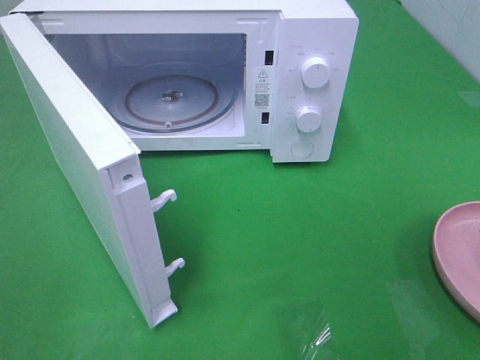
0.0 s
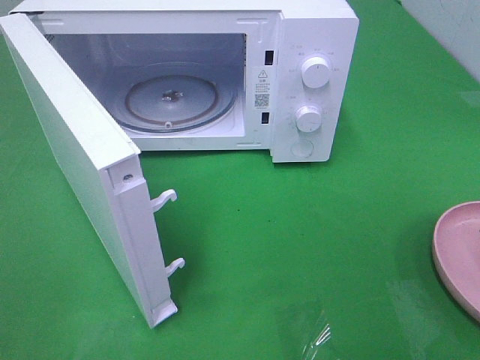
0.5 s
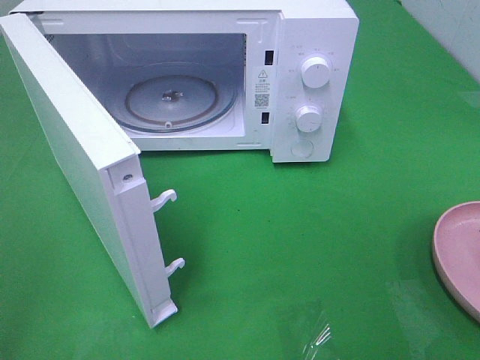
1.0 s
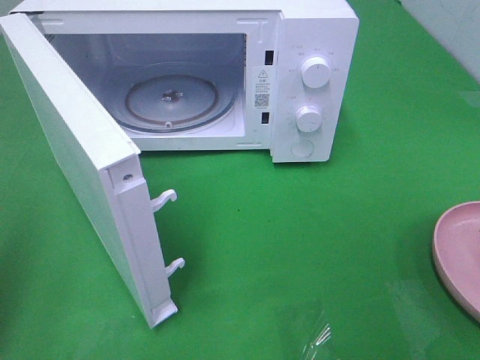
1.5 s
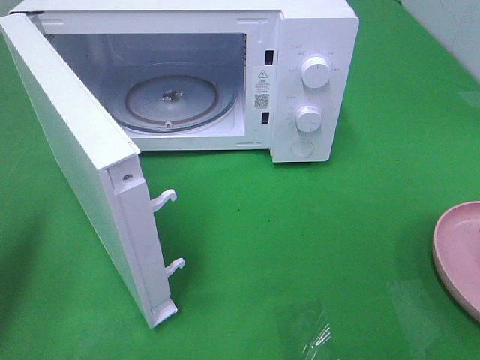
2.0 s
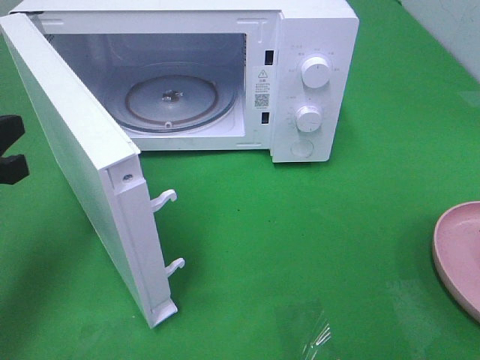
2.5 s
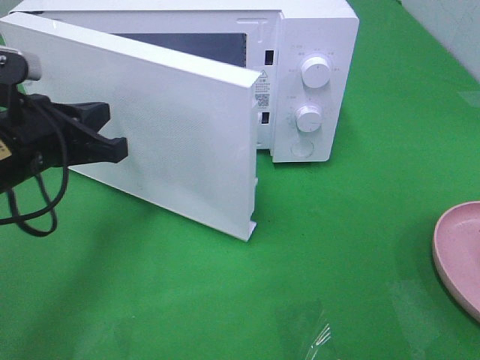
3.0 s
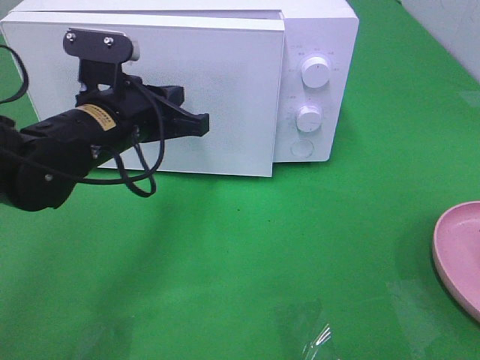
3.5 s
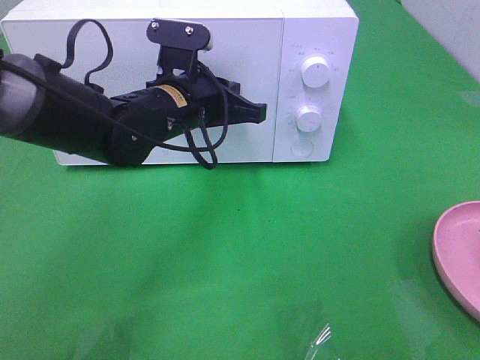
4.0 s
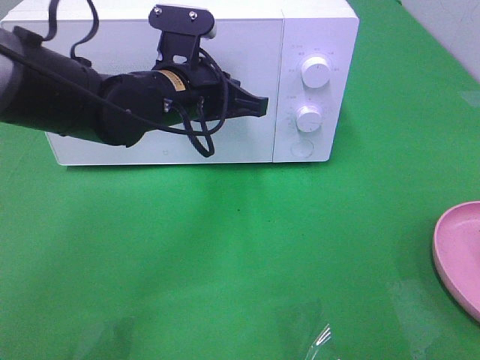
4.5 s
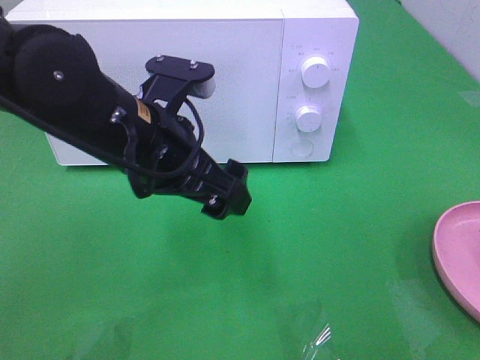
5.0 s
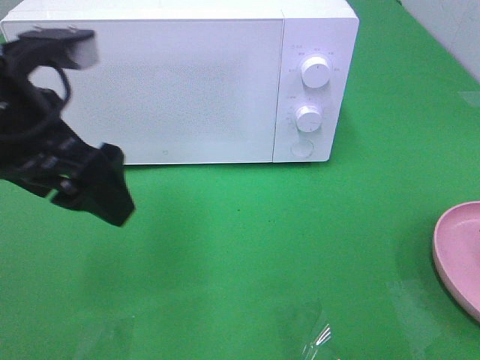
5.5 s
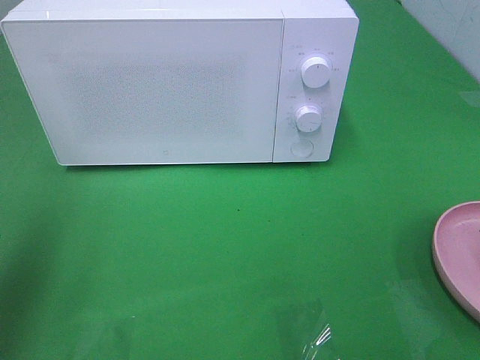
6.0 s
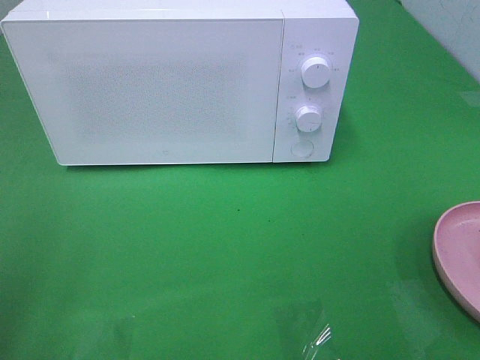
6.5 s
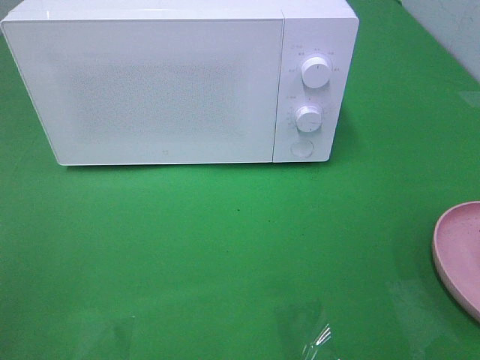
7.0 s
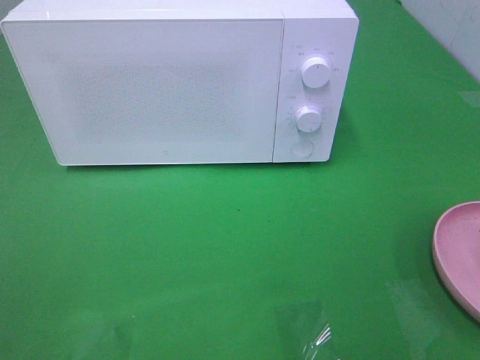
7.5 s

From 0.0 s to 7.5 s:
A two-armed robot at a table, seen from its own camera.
Task of the whole recording: Heat the burger.
Step, from 0.0 s to 4.5 s: Left hand: close the microwave door.
From 0.0 s to 2.0 s: The left gripper heads forward, covering about 20 cm, and closes its fingers.
From 2.0 s to 4.0 s: The left gripper travels to the right and forward by roughly 30 cm.
From 4.0 s to 5.5 s: The left gripper heads backward, to the left and upward, covering some 20 cm, and opens.
From 5.5 s to 7.5 s: The left gripper moves backward and to the left, approximately 25 cm.

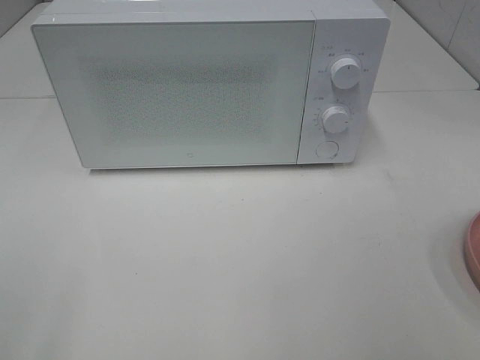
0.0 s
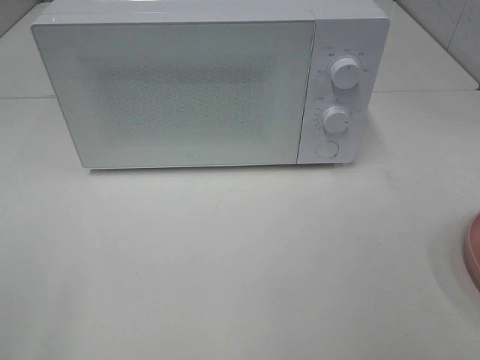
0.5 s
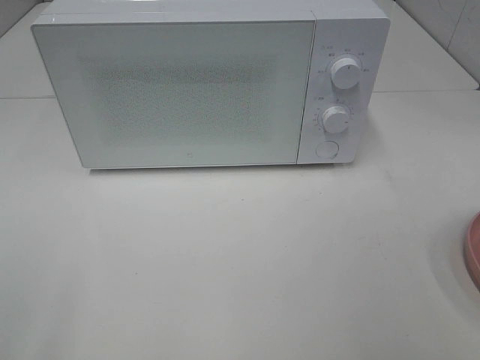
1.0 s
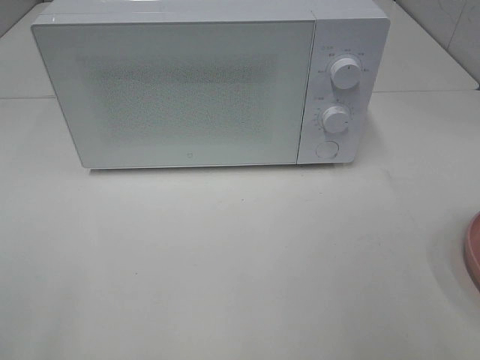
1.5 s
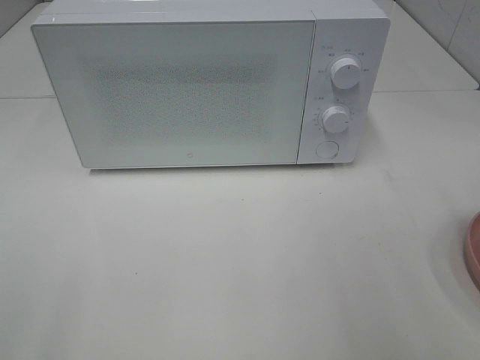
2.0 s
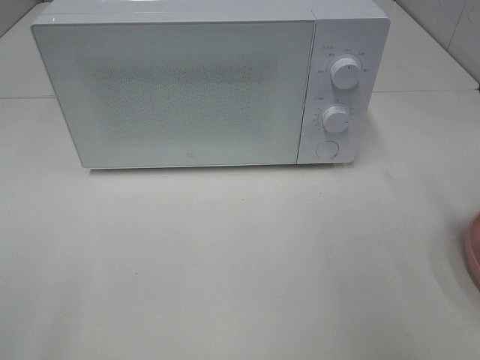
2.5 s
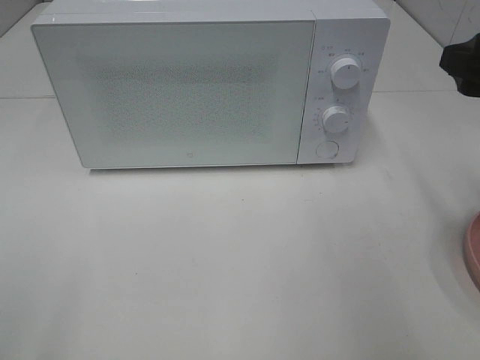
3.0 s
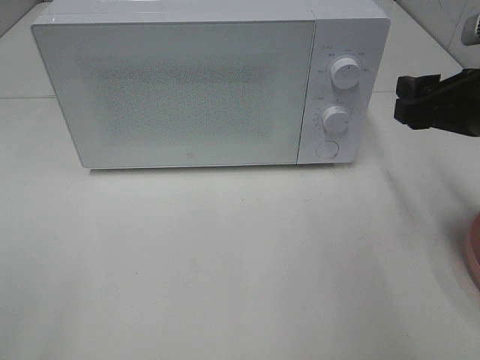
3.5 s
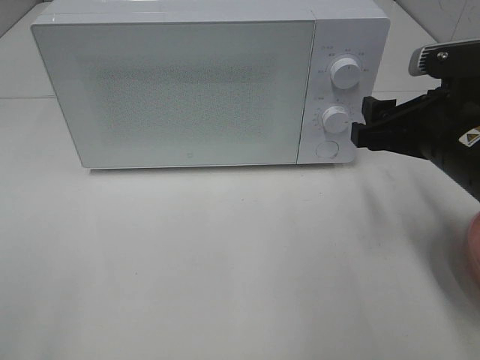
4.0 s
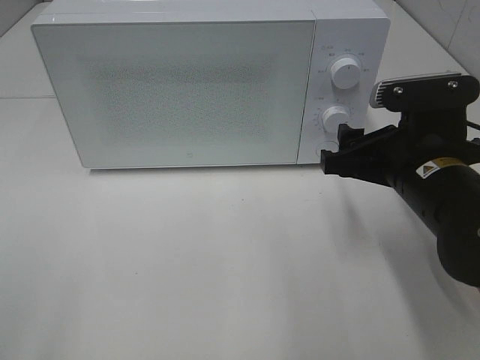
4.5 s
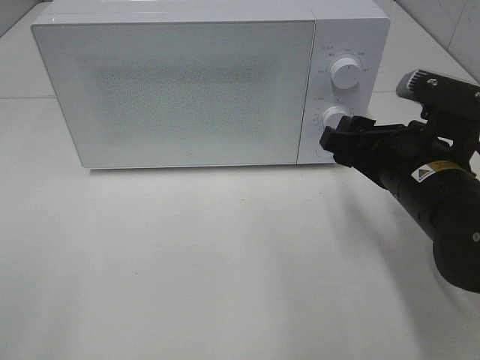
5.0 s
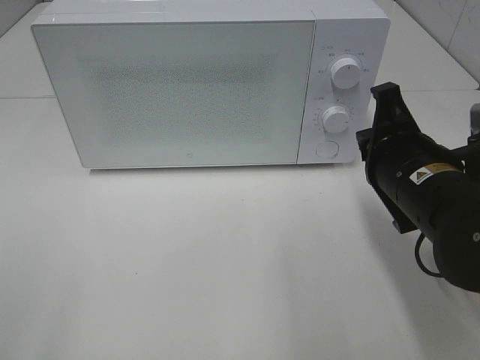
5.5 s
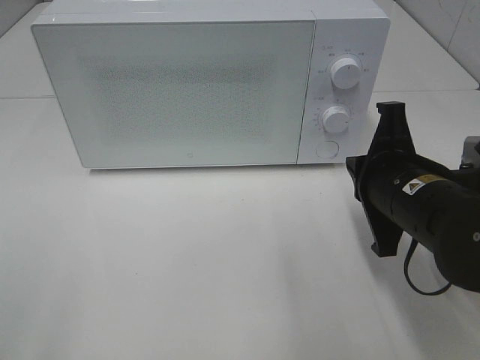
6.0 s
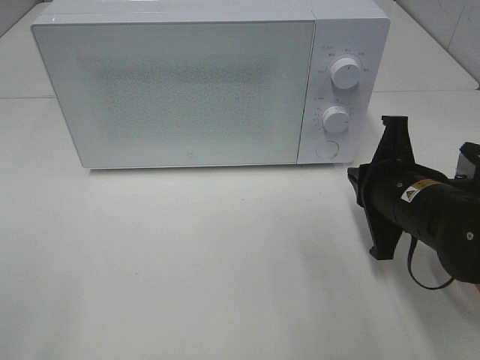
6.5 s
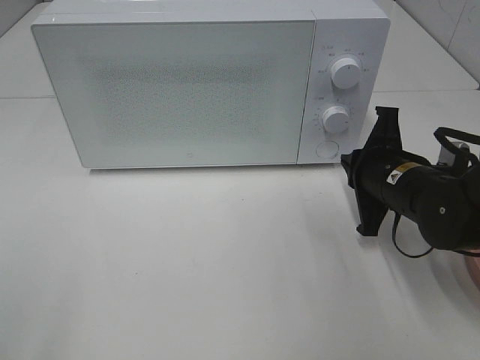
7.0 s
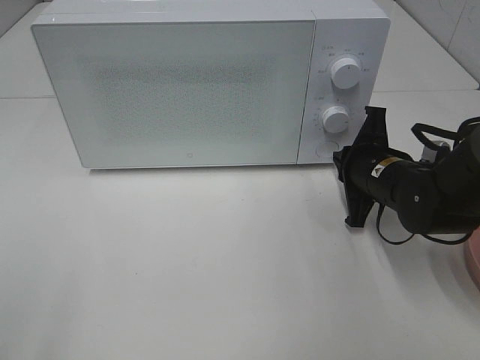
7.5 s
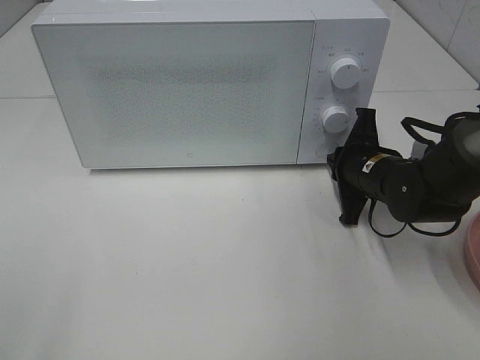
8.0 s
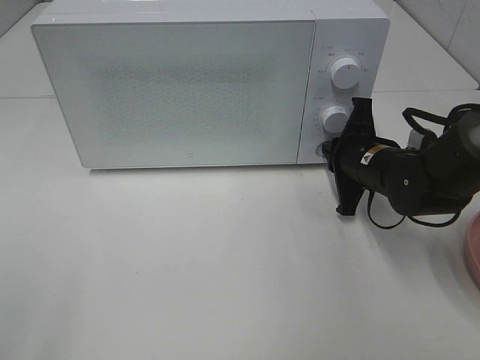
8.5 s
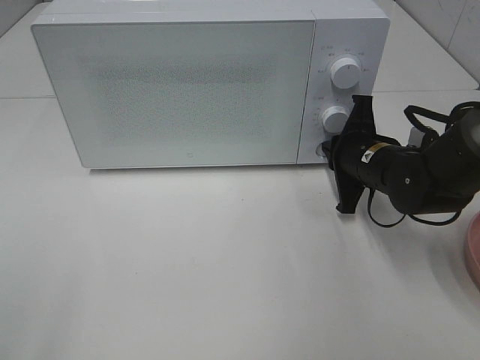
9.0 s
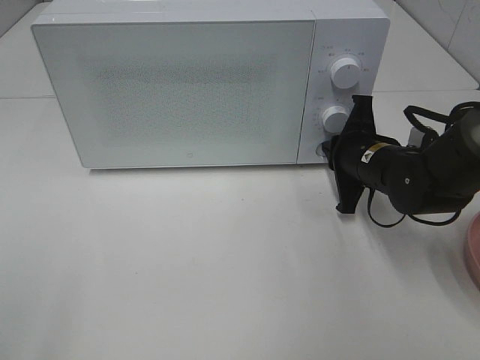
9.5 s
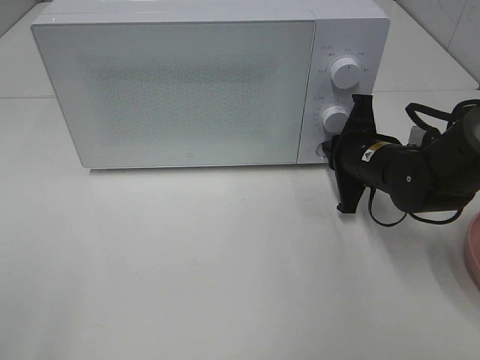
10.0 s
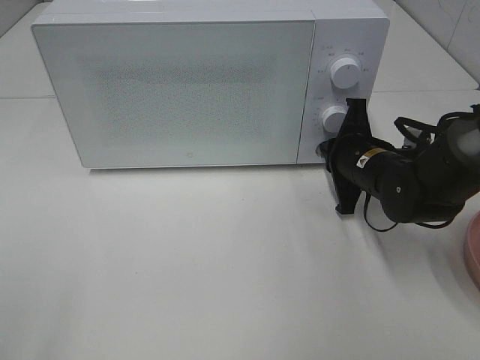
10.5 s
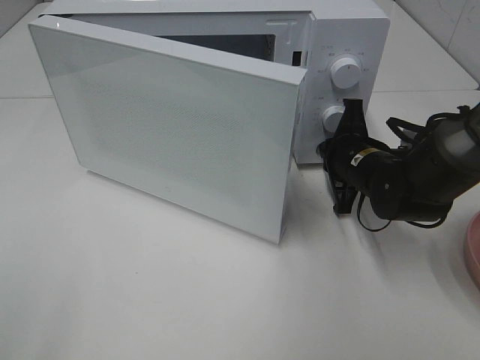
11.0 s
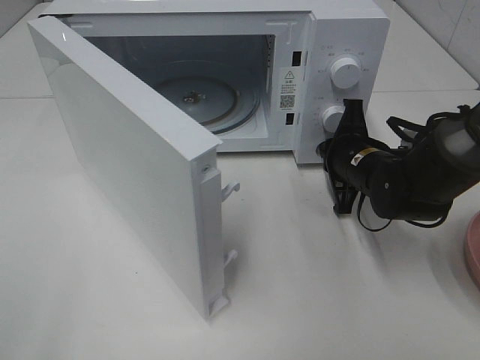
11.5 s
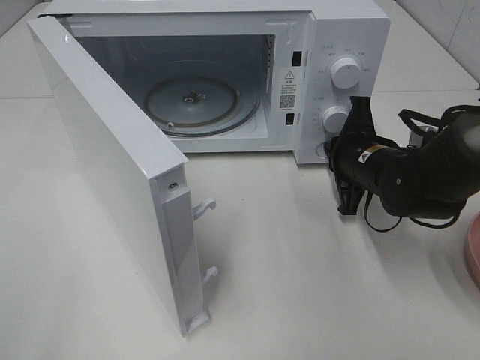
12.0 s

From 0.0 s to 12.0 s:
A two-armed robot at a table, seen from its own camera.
Task of the whole recording: Heat the burger.
From 2.0 s to 4.0 s: The right gripper moves forward, downward and to the left, about 20 cm.
From 4.0 s to 6.0 s: The right gripper ends up about 5 cm from where it was, and closes its fingers.
From 6.0 s to 8.0 s: The right gripper travels forward and downward by roughly 15 cm.
From 8.0 s to 10.0 s: The grippers move only a little.

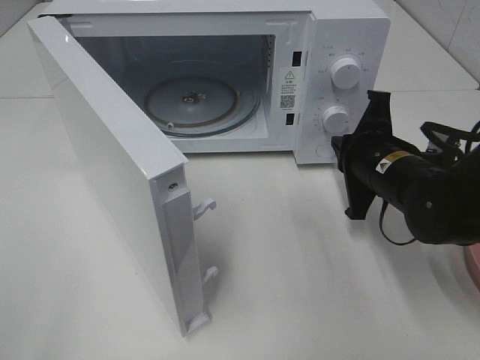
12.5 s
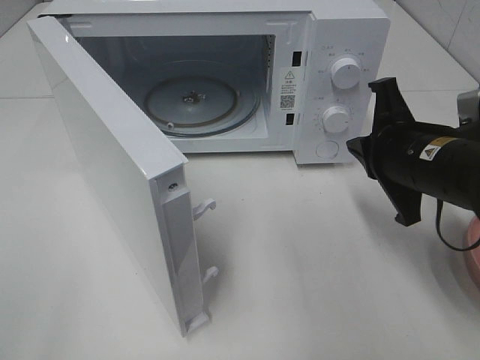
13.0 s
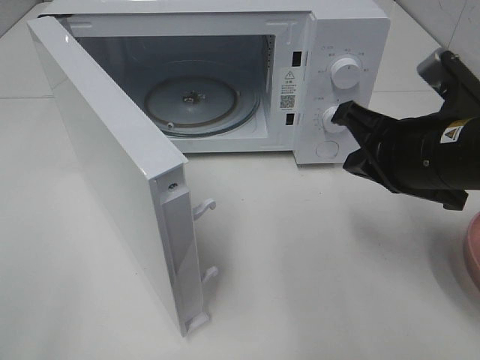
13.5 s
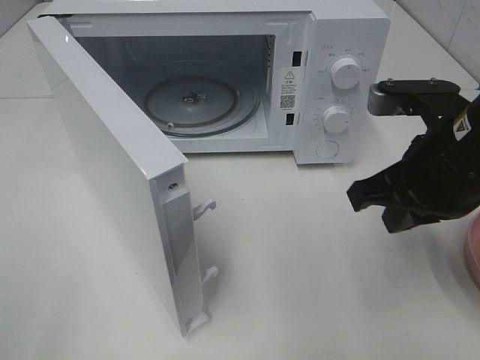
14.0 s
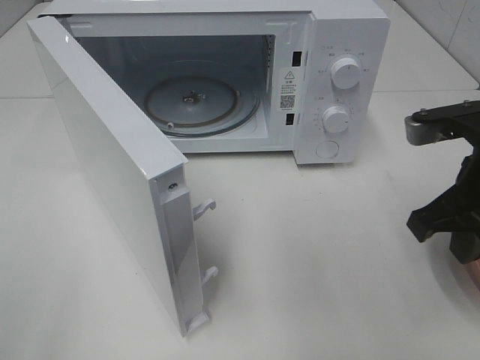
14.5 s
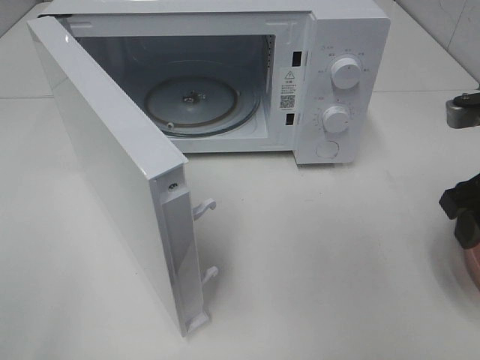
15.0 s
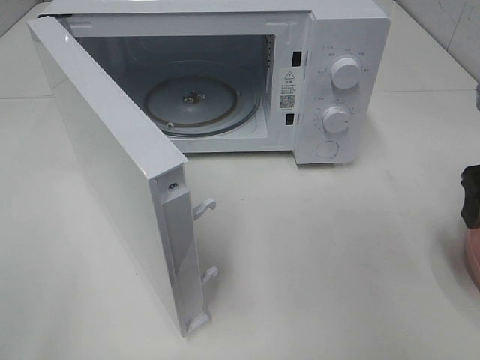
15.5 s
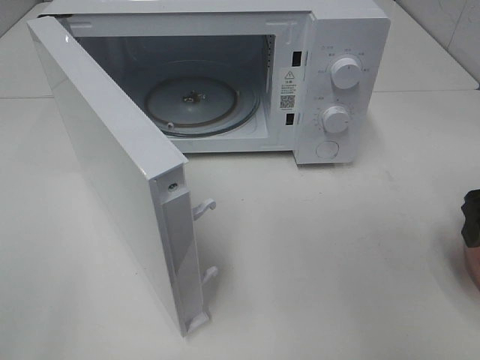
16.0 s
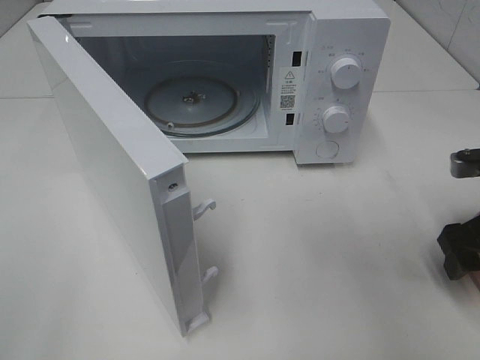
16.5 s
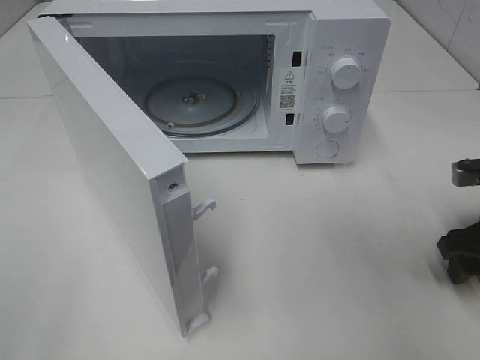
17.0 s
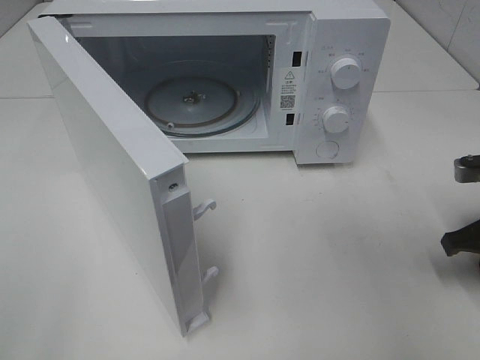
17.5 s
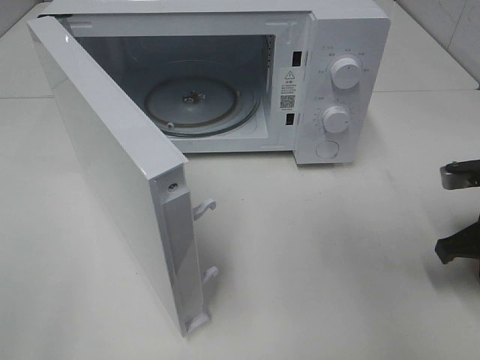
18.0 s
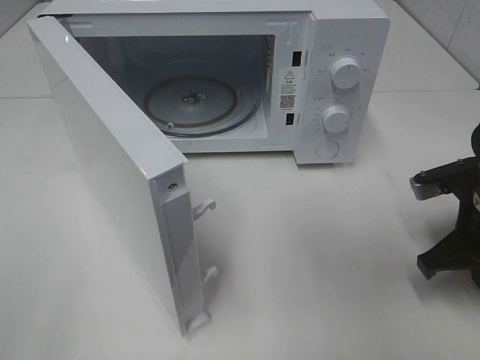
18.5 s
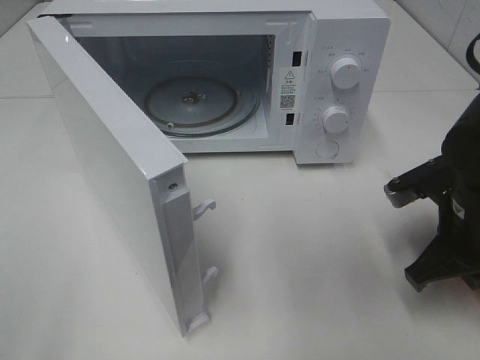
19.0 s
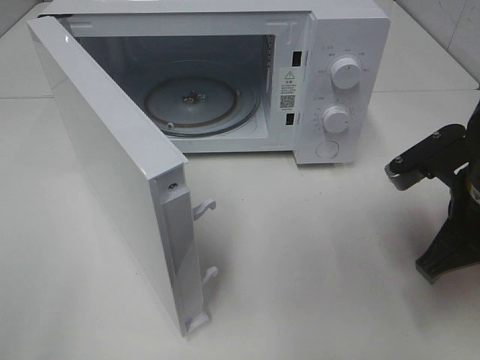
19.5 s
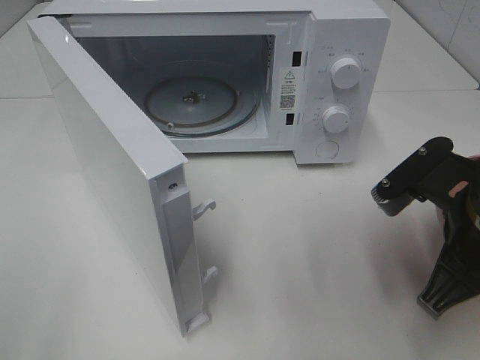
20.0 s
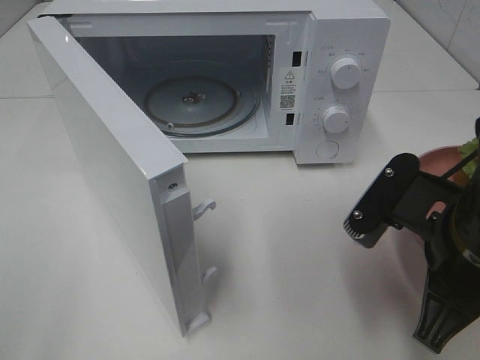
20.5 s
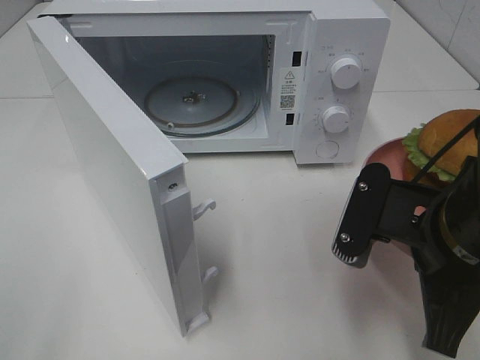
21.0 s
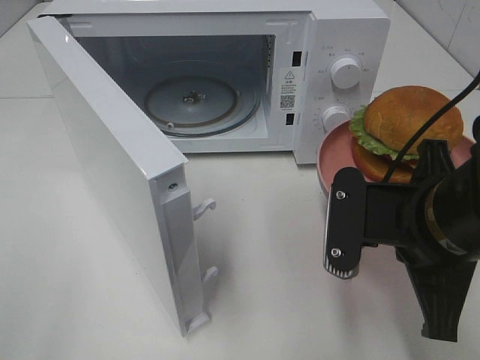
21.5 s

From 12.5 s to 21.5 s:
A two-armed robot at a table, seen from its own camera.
Task of the whole recording: Heat the burger.
Step, from 12.5 s to 17.5 s: Right hand: grab the plate with the hamburger.
From 12.5 s to 14.5 s: The right gripper shifts about 10 cm upward and backward.
From 14.5 s to 17.0 s: The right gripper travels downward and to the right by about 15 cm, and opens its fingers.
From 17.0 s to 19.5 s: The right gripper heads to the left and upward, covering some 10 cm, and closes up.
From 19.5 s to 21.5 s: The right gripper heads to the left, covering about 5 cm.
